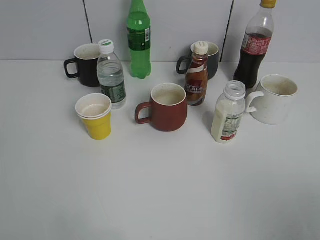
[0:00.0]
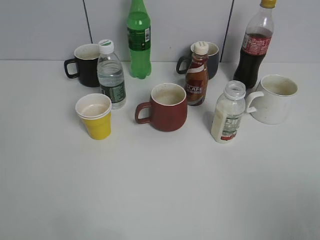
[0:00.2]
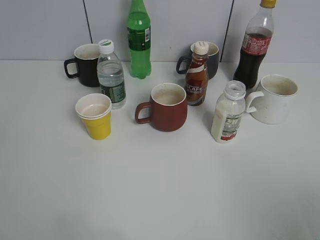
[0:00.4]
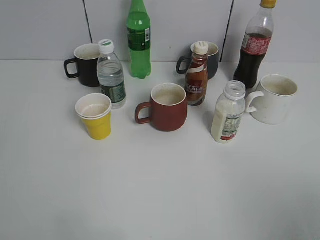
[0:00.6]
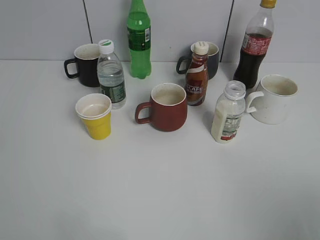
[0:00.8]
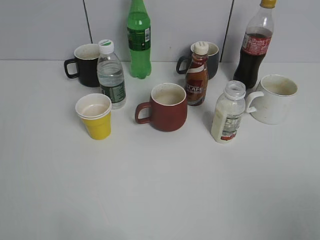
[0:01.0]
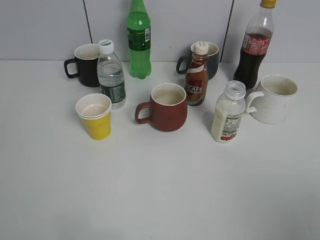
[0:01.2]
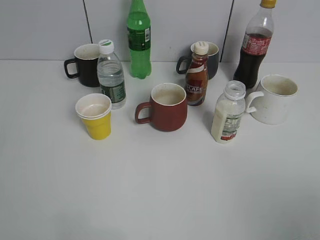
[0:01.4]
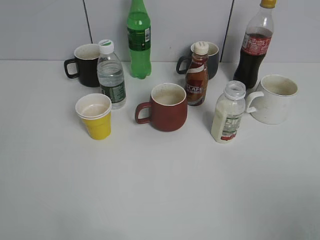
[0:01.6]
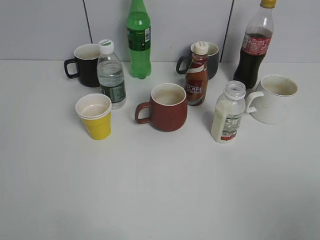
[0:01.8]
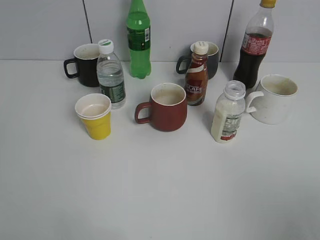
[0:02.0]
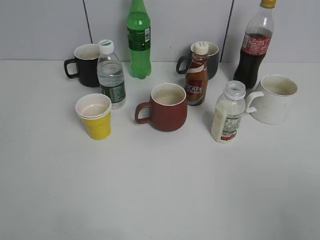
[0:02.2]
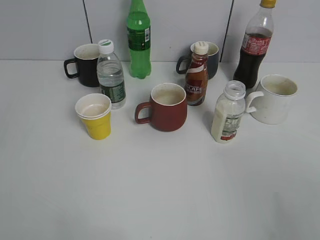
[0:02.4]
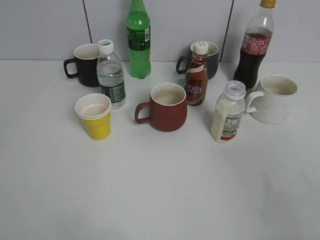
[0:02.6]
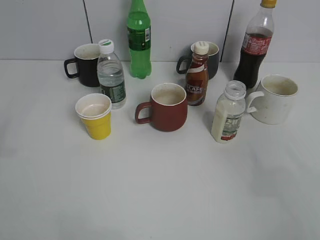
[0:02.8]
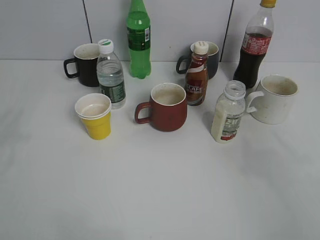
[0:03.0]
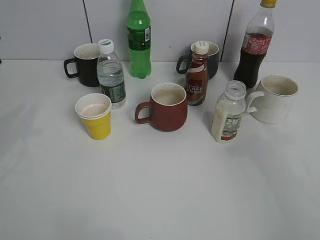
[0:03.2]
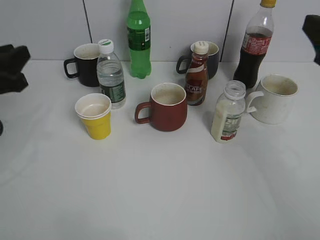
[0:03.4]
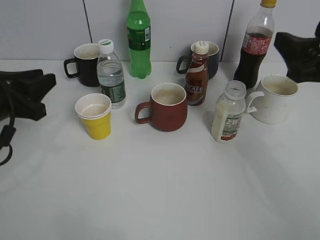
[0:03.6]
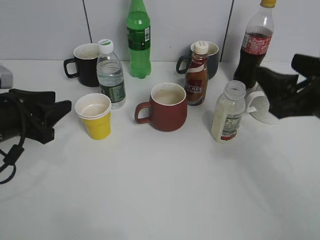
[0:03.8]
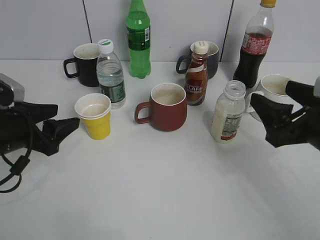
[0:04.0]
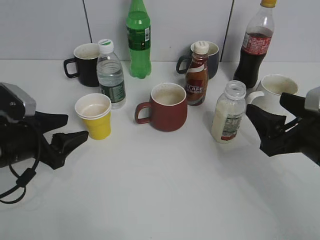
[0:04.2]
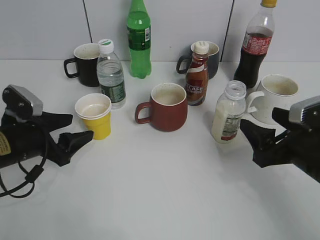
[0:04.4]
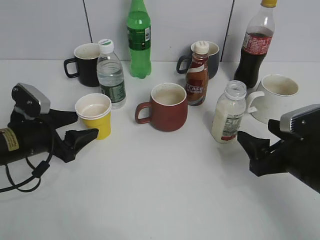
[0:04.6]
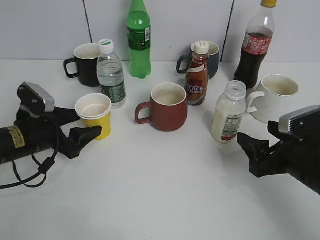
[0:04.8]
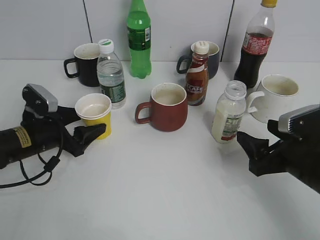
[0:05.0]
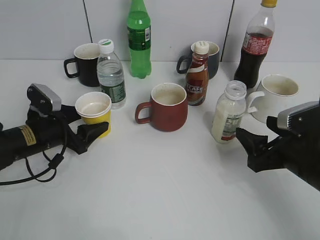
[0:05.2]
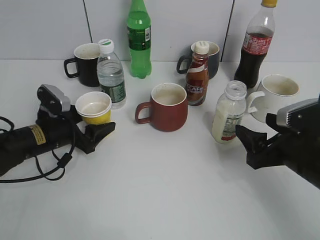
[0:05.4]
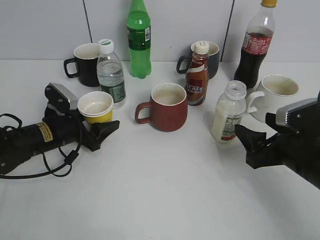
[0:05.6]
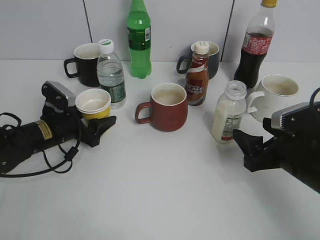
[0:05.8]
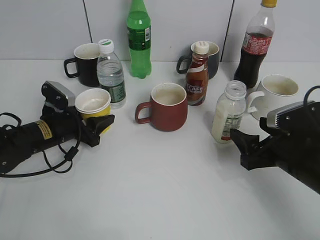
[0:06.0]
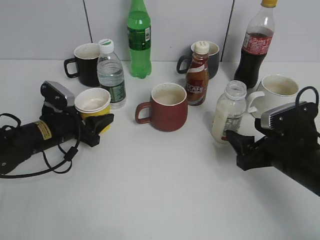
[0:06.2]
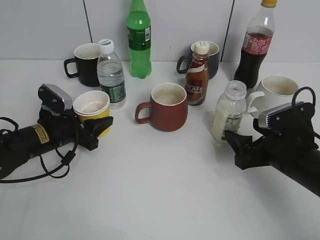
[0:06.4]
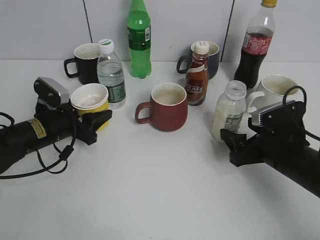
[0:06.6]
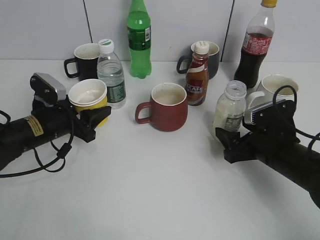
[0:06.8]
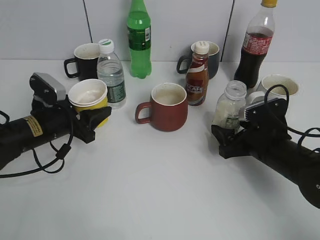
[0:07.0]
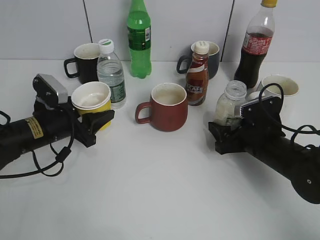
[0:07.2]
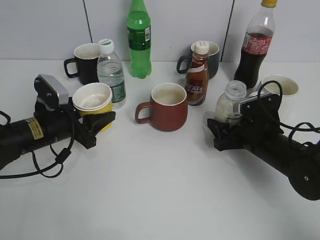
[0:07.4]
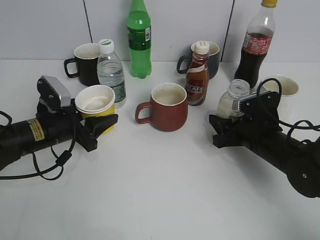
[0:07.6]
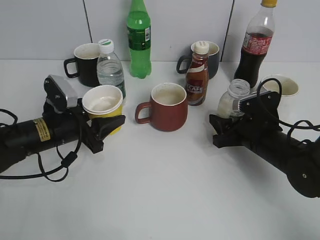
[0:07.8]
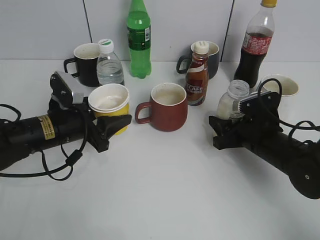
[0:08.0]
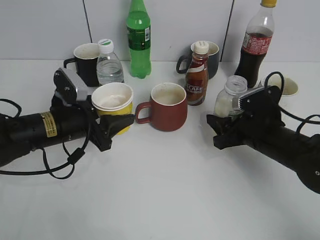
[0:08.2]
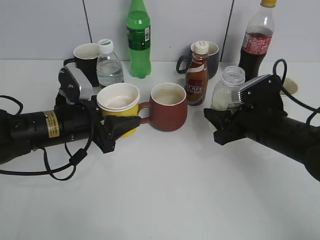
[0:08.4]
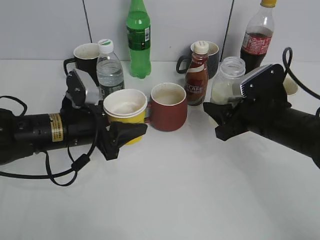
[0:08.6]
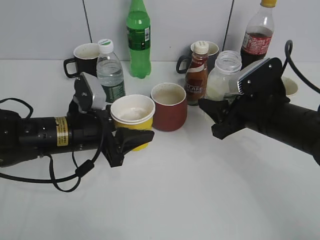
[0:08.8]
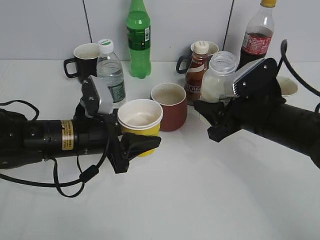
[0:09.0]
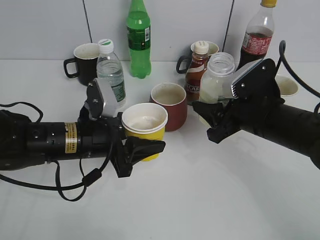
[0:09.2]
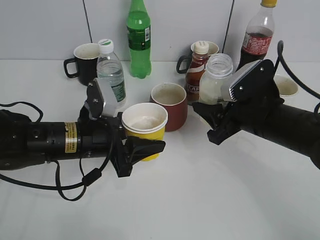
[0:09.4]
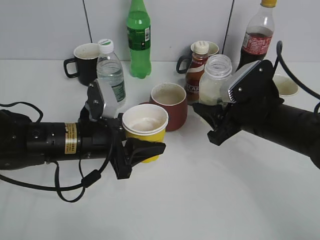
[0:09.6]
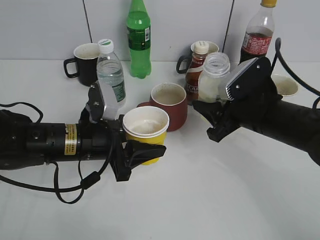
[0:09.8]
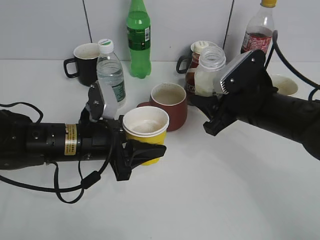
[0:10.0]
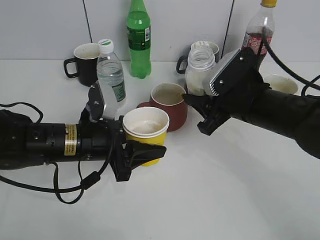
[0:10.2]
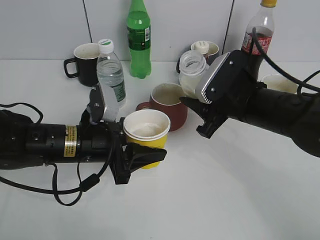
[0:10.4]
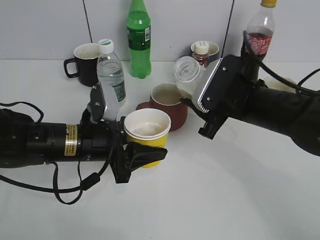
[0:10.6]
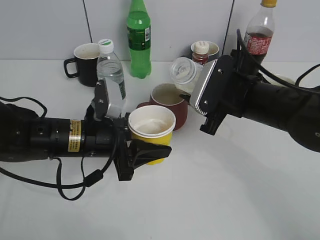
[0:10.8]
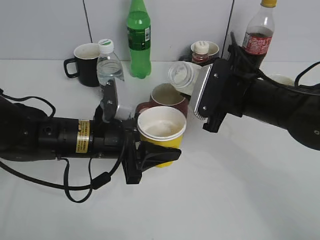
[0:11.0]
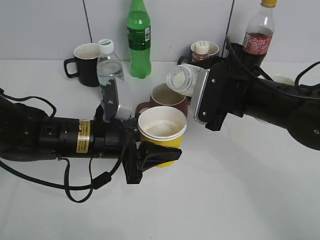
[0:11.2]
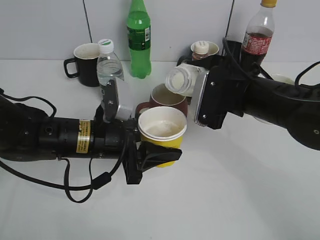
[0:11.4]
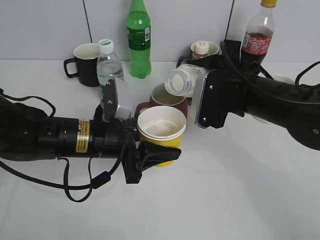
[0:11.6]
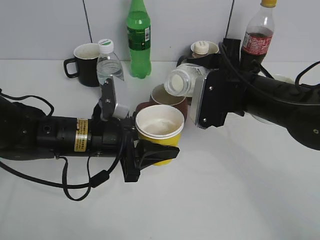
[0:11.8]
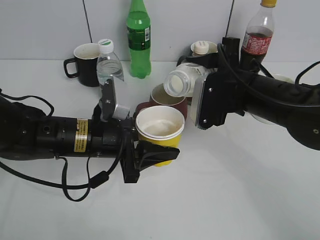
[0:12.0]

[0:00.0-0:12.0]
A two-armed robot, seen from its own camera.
Step, 0:03.2 to 0:06.0: Grasp the yellow paper cup with left gripper.
Step, 0:06.2 to 0:06.6: Lift the yellow paper cup with left gripper.
Step, 0:06.8 to 0:08.0: Grasp the bottle with yuexian Milk with right gripper.
0:01.6 to 0:03.0: The right gripper moves forward, about 15 cm.
0:03.0 to 0:04.4: The grippers both shift downward by about 15 cm. The left gripper opens up.
0:04.4 to 0:06.0: The left gripper goes some 10 cm forward, and closes.
0:06.0 to 0:07.6: The right gripper travels forward by some 5 cm, and closes its fingers.
0:07.6 to 0:09.0: The right gripper shifts about 10 cm upward; the left gripper heads to the right, covering roughly 5 cm.
0:09.0 to 0:10.4: The grippers move only a little.

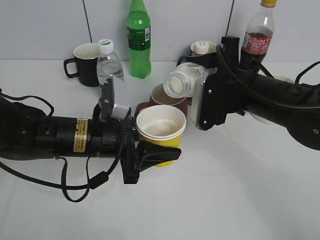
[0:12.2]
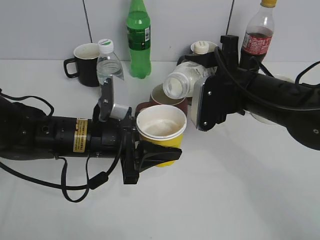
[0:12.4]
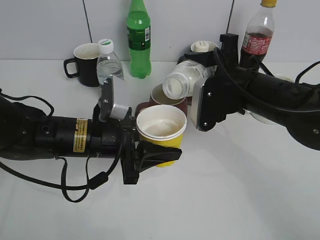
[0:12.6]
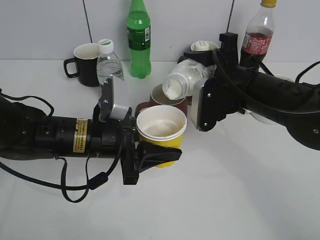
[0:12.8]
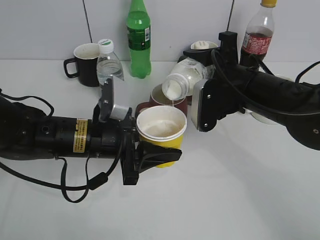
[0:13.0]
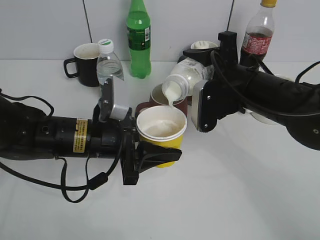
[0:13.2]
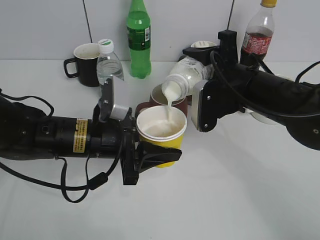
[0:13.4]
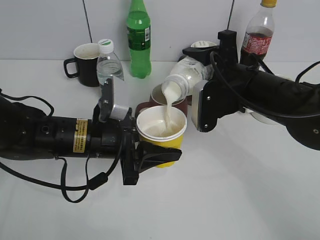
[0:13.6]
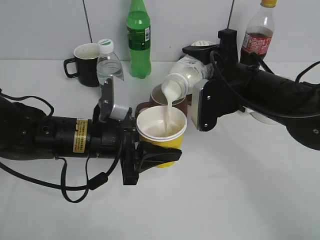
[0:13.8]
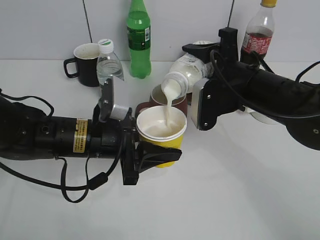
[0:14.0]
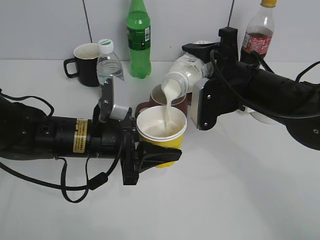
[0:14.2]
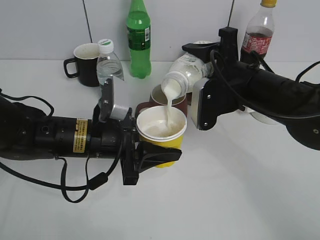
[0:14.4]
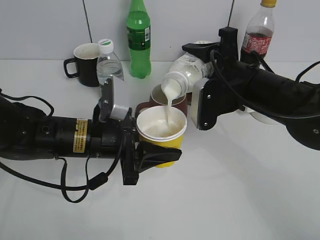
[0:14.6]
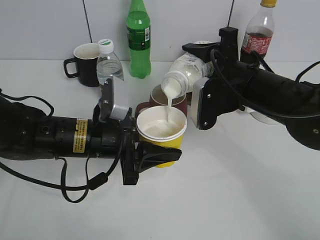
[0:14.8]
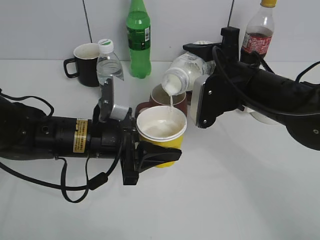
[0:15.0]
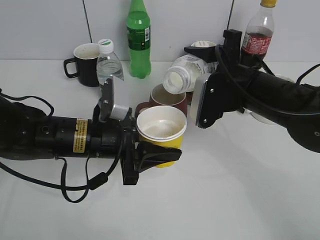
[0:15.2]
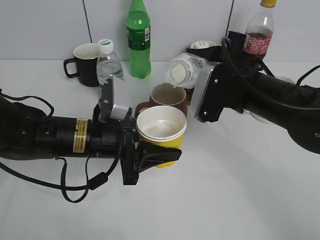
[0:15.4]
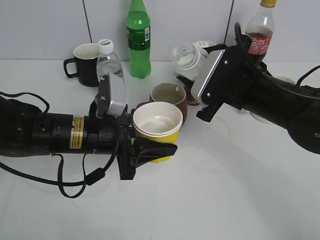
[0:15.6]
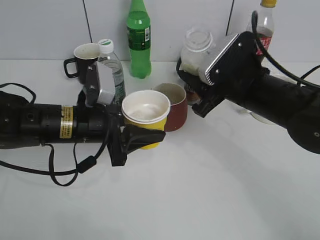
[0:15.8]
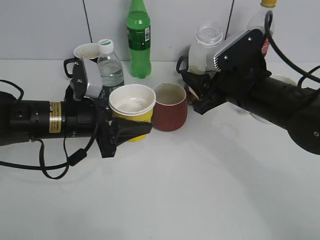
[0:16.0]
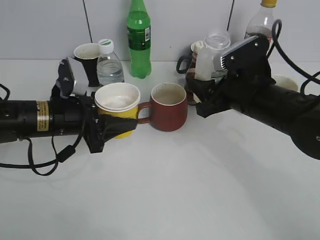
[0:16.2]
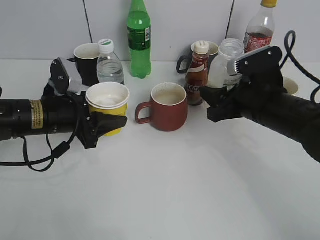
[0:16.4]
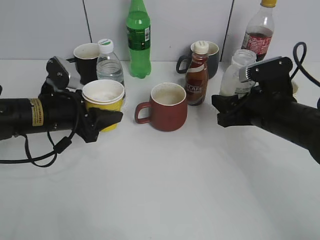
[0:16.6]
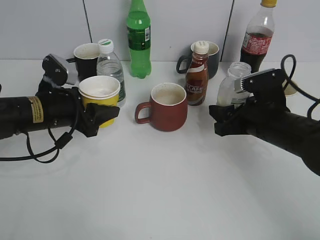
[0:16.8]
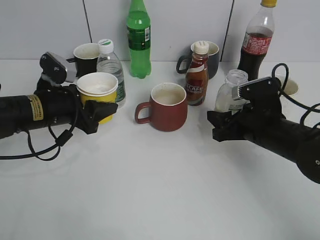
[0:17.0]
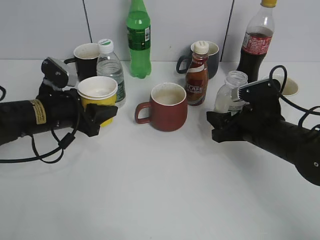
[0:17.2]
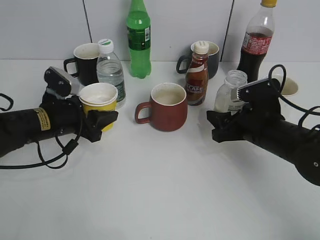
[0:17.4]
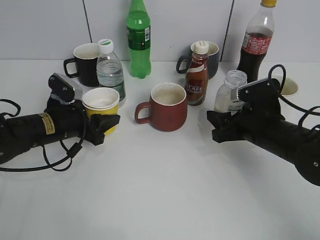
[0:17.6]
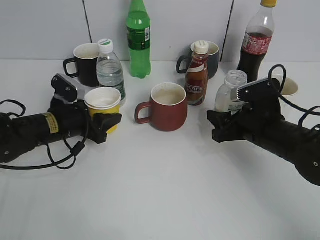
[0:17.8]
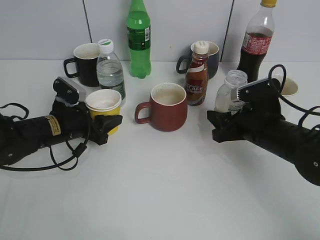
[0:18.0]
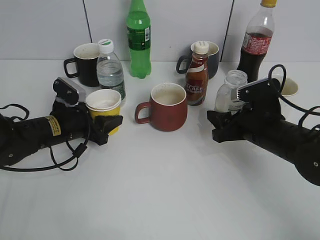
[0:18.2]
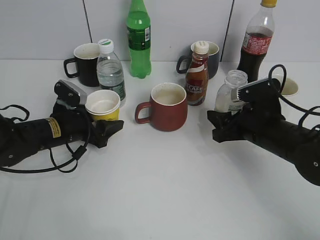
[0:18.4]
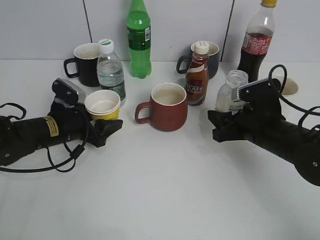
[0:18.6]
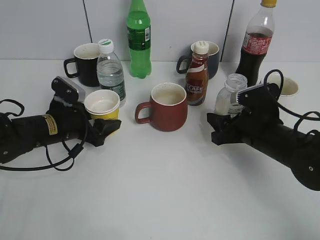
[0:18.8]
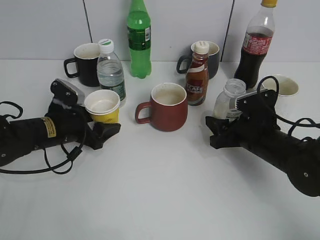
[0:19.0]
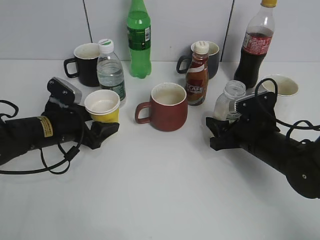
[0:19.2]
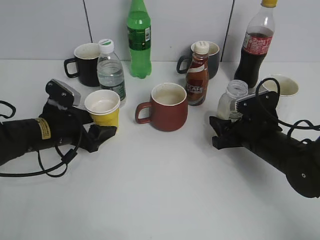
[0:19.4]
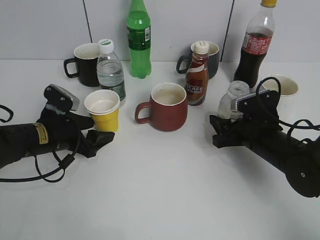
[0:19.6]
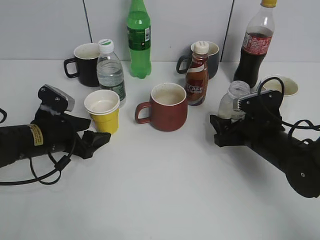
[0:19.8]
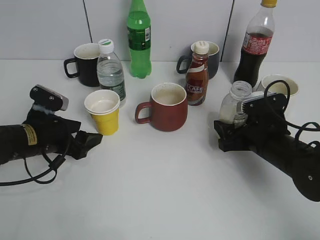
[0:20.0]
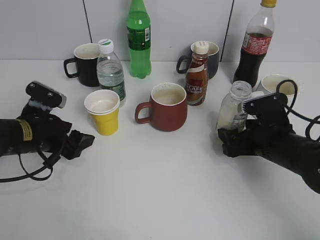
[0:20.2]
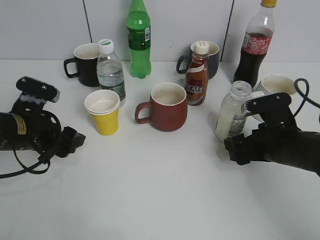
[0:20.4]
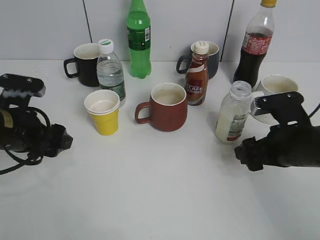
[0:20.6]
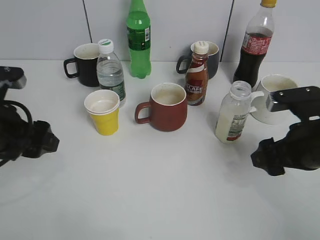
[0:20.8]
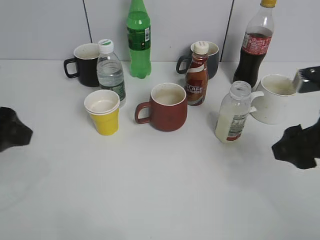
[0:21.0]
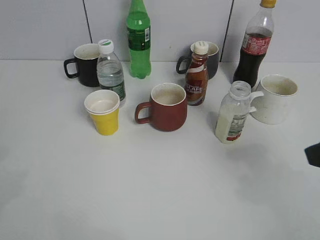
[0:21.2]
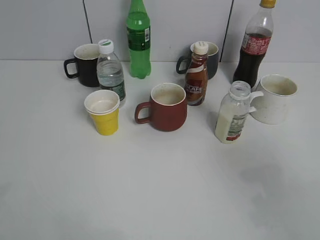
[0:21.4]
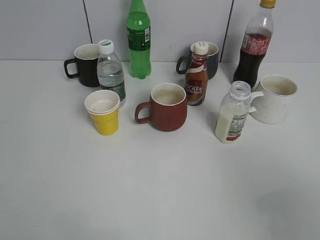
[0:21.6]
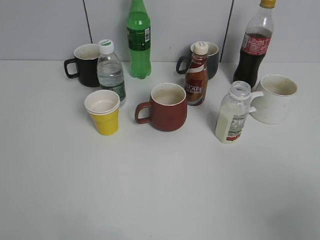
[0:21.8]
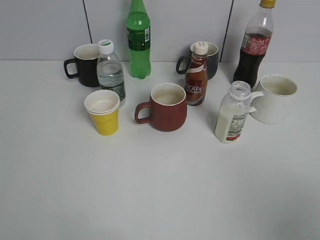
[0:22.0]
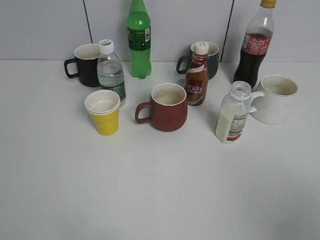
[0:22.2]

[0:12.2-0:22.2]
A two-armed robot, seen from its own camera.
Step, 0:12.2 to 0:15.2: Pour the yuexian Milk from bottle to cup with right gripper.
Step, 0:15.6 to 0:20.4: Place the yuexian Milk bottle on the table with right gripper.
0:12.2 to 0:13.6: The grippers stay close to where they were, moving slightly.
0:13.6 to 0:15.0: The two grippers keep their place.
0:15.0 to 0:16.4: The left gripper is displaced to the left by some 10 cm.
0:16.4 to 0:18.0: The grippers both shift downward by some 5 cm.
0:18.0 to 0:19.4: The left gripper opens up.
0:19.4 to 0:20.8: Both grippers travel together upward and backward, about 10 cm. The right gripper opens up.
0:20.8 to 0:22.2: The right gripper heads backward and upward, covering about 25 cm, while the left gripper heads backward, upward and to the left, covering some 25 cm.
